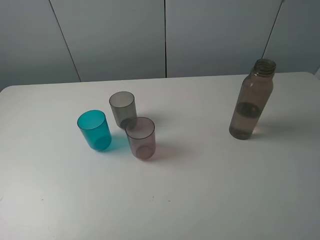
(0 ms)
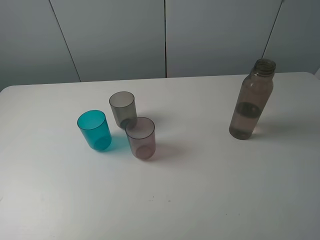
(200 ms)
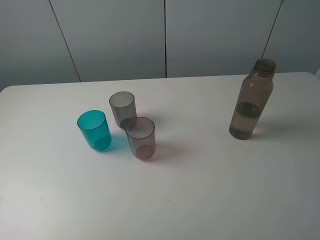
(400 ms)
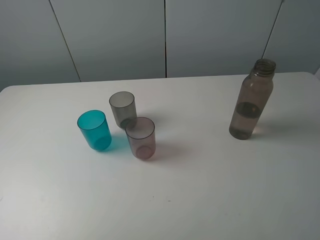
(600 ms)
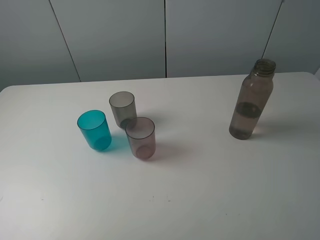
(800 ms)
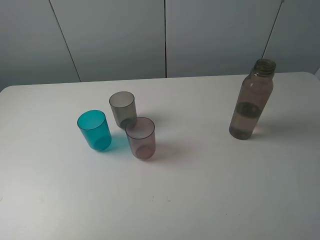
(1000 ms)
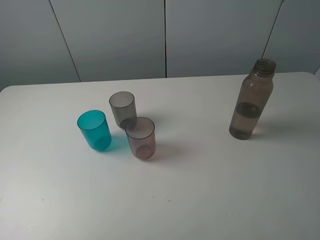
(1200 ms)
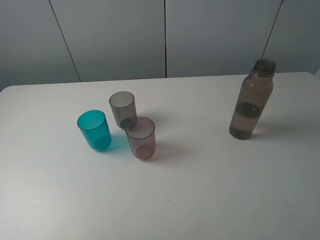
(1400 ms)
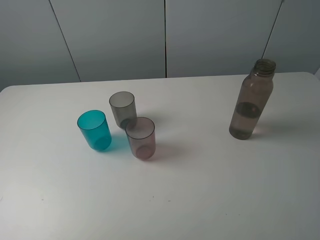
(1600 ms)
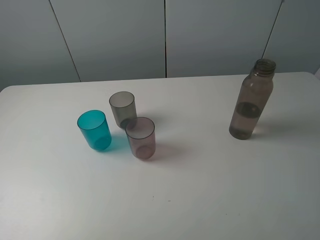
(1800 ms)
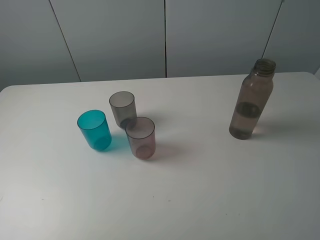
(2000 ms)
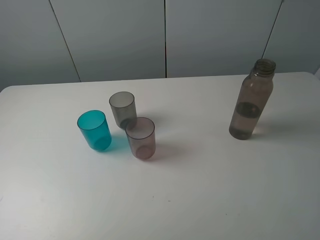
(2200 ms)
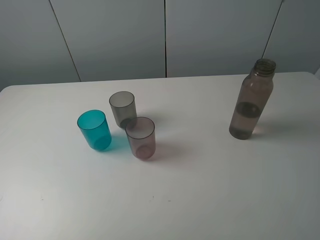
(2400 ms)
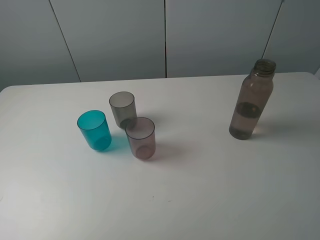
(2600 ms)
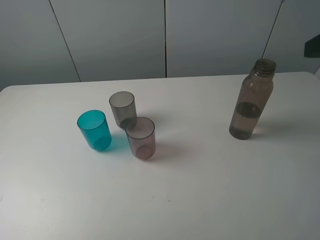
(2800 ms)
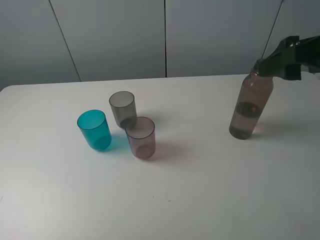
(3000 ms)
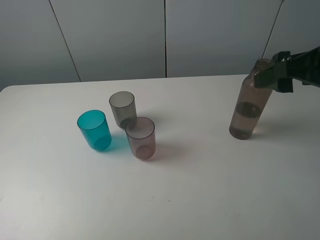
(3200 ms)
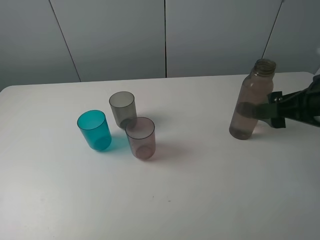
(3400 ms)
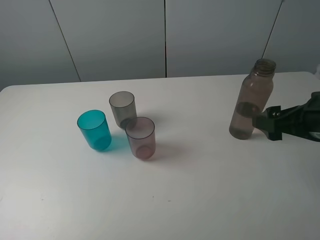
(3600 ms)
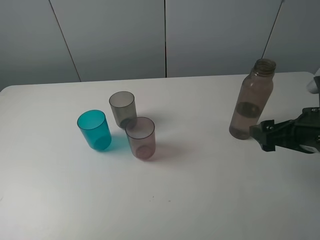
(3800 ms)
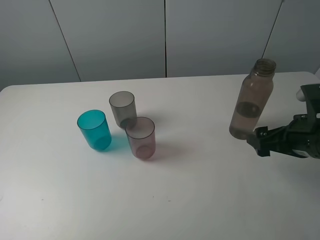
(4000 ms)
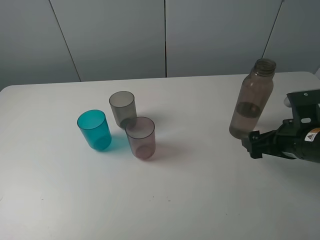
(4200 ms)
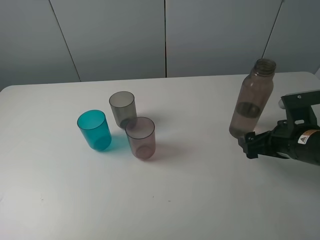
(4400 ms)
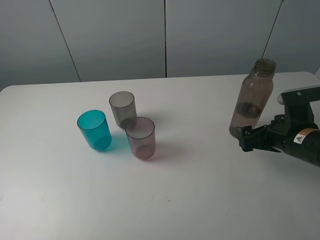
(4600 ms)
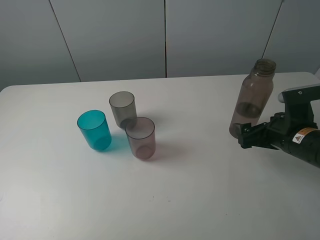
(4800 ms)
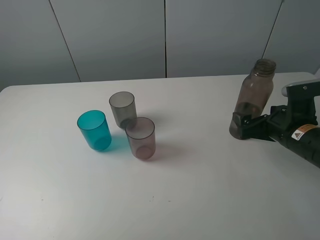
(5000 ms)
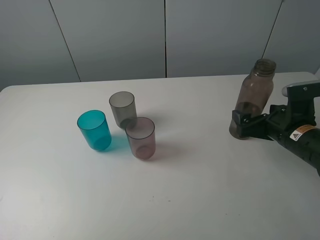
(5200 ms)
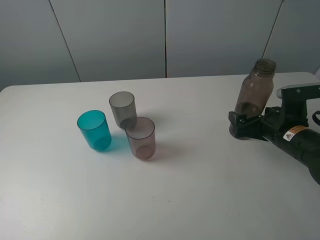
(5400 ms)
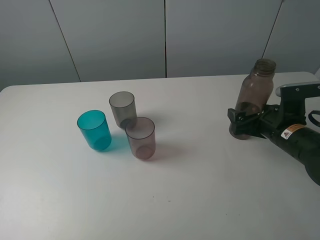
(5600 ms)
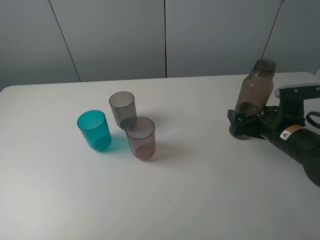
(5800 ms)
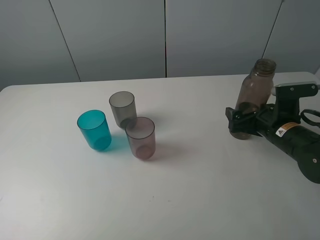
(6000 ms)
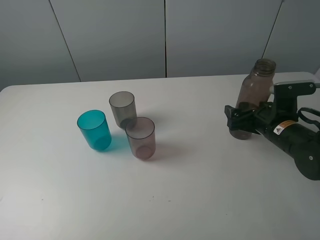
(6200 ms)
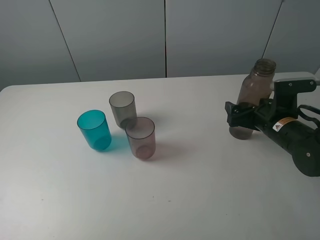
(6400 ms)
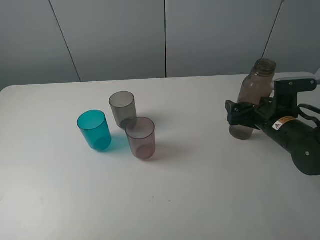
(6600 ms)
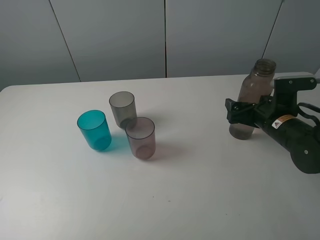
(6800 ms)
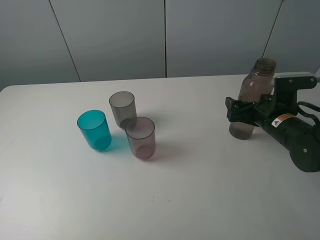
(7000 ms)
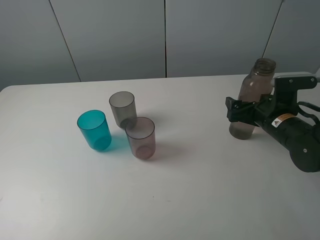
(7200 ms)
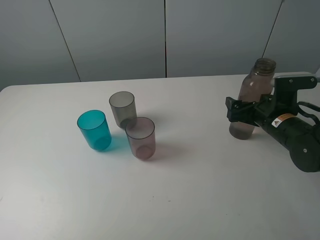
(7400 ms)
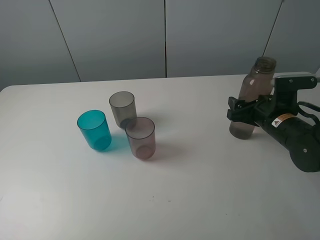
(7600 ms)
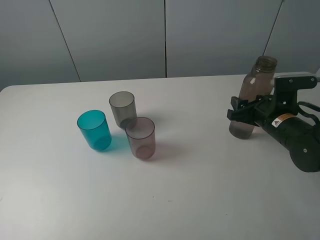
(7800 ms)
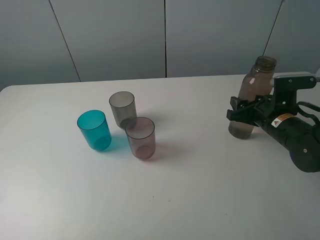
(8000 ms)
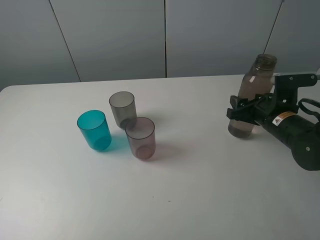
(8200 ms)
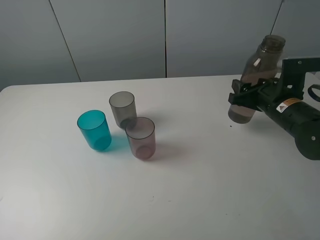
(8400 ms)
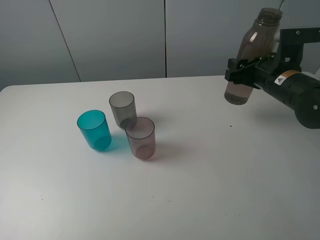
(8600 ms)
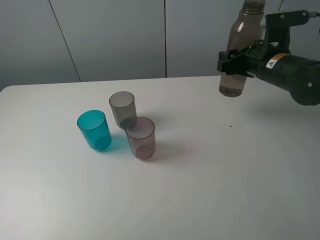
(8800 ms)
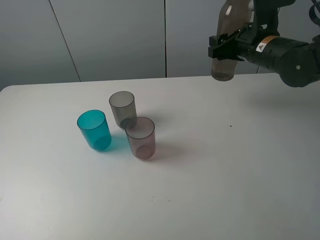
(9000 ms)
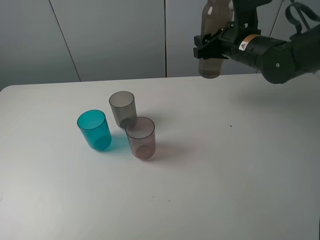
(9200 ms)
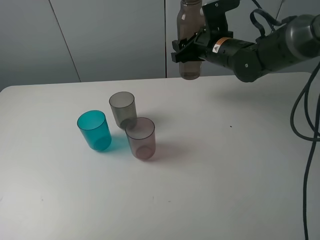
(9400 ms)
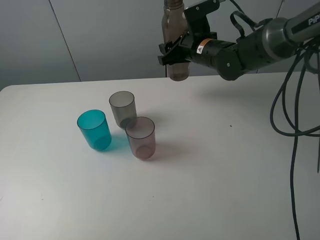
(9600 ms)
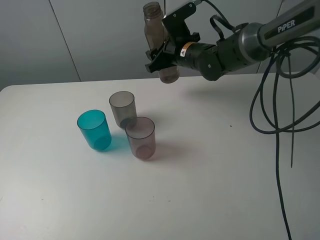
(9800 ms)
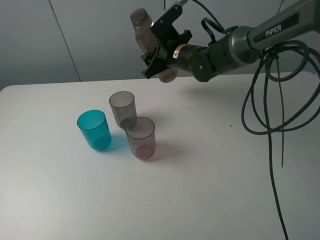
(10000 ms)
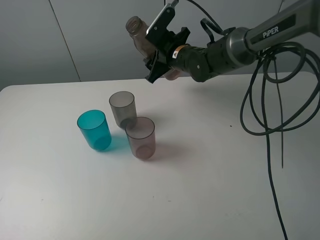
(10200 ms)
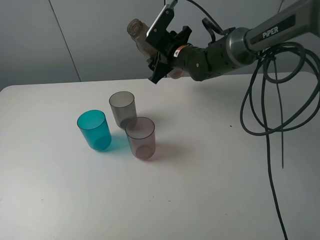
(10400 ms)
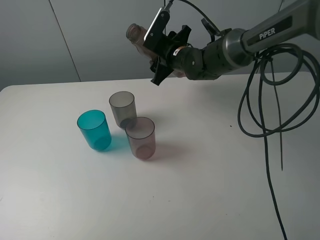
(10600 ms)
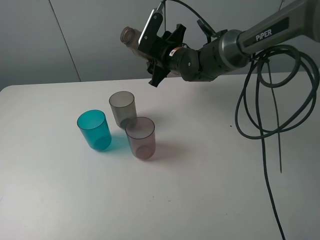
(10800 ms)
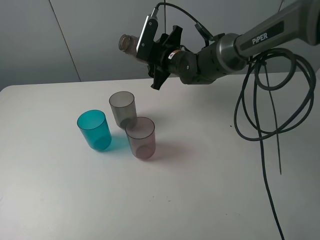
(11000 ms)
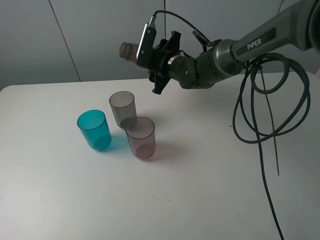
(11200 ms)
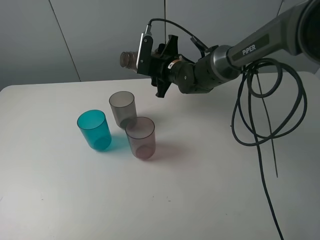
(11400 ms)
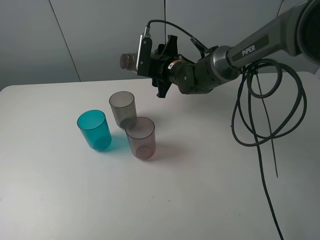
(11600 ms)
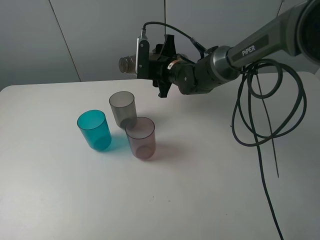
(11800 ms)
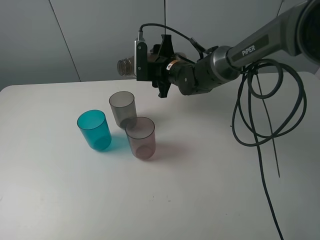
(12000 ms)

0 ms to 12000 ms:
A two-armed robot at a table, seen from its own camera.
Task of the whole recording: pick up the bottle filled with water and pour water into the middle cup of the three cups.
Step, 0 ms to 8000 ms: Grasp the brown bottle with the right gripper.
0 ms to 1600 ms: Both grippers stay about where they are.
1600 ms to 3000 ms: The right gripper shifts some 20 cm forward.
3000 ms to 4400 ms: The right gripper moves downward, some 20 cm.
4400 ms to 6000 ms: The right gripper moves roughly 5 cm.
6000 ms to 7600 ms: The right gripper closes up.
7600 ms to 9000 ms: The right gripper shifts some 15 cm upward, forward and to the left.
9000 ms to 10400 ms: The right gripper is displaced to the left and forward by roughly 15 cm.

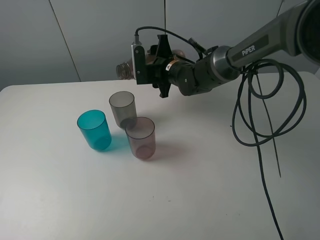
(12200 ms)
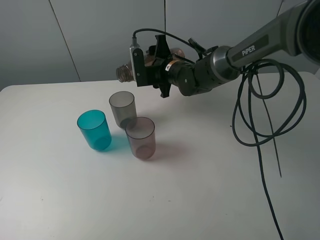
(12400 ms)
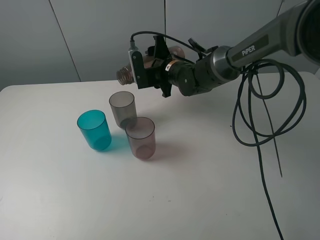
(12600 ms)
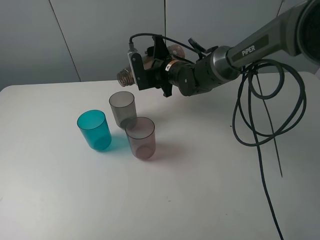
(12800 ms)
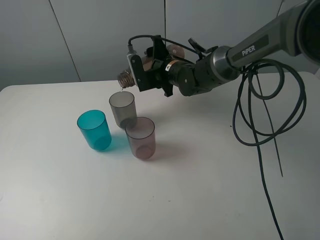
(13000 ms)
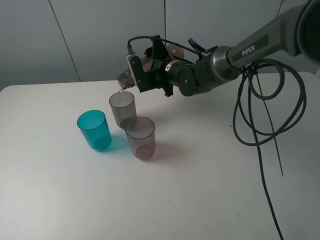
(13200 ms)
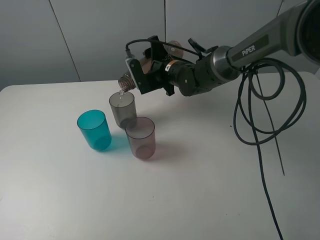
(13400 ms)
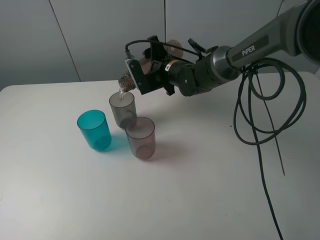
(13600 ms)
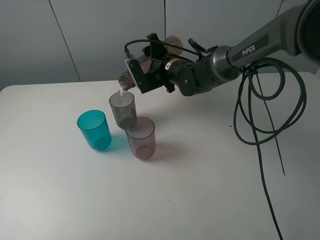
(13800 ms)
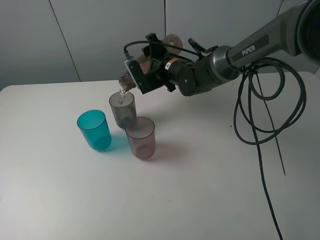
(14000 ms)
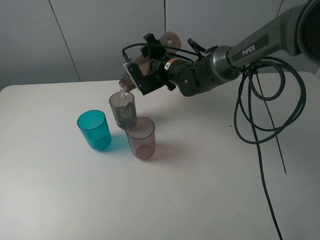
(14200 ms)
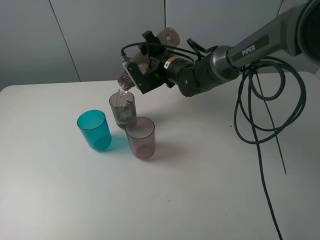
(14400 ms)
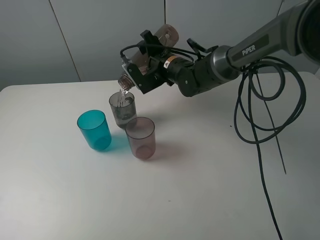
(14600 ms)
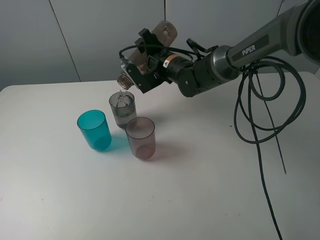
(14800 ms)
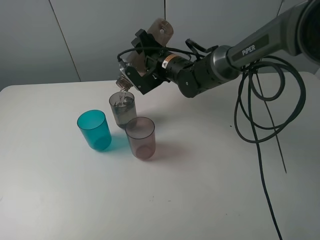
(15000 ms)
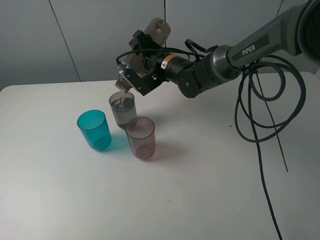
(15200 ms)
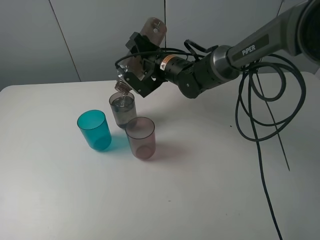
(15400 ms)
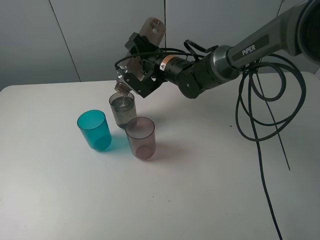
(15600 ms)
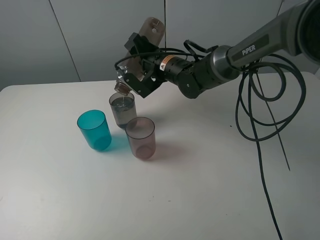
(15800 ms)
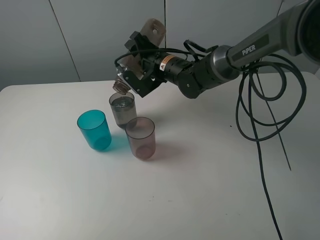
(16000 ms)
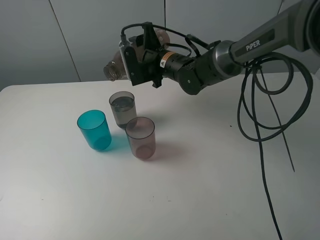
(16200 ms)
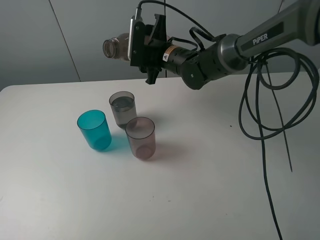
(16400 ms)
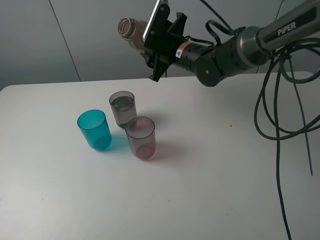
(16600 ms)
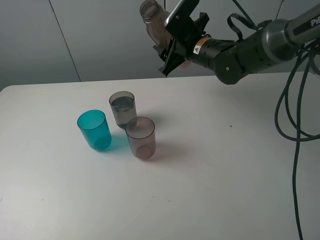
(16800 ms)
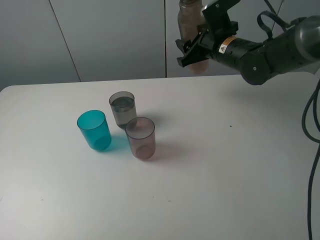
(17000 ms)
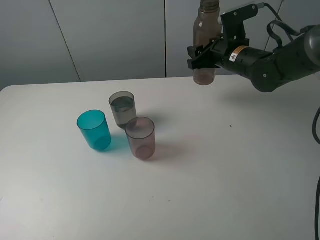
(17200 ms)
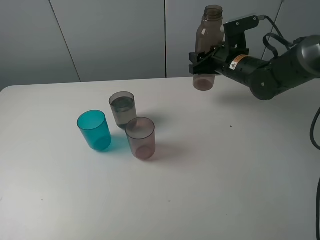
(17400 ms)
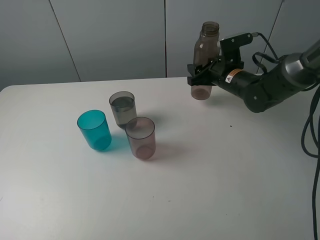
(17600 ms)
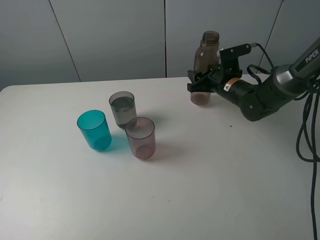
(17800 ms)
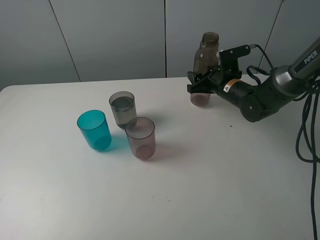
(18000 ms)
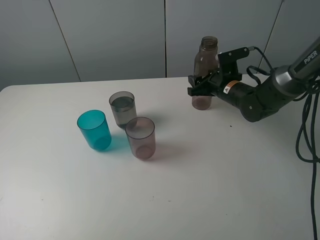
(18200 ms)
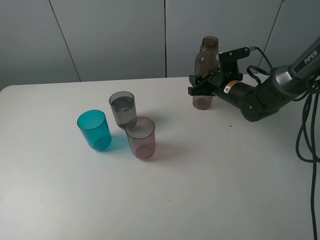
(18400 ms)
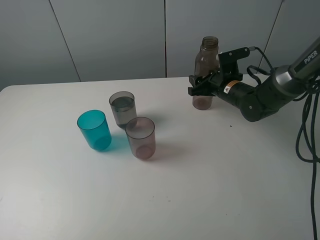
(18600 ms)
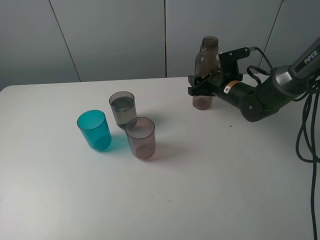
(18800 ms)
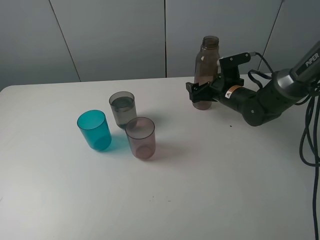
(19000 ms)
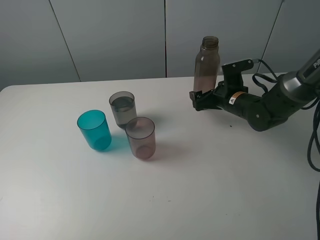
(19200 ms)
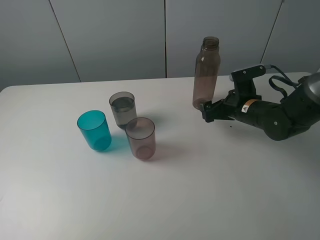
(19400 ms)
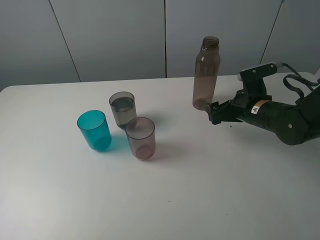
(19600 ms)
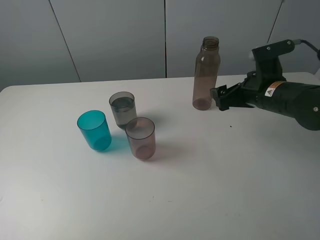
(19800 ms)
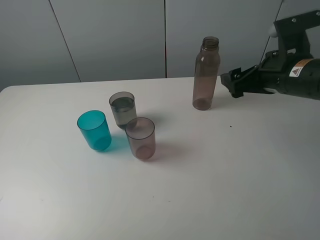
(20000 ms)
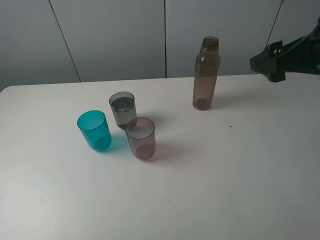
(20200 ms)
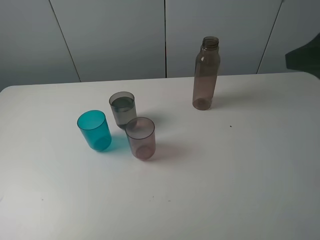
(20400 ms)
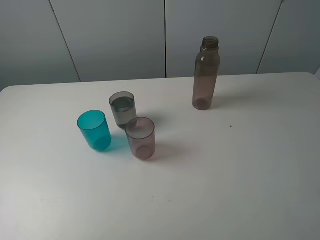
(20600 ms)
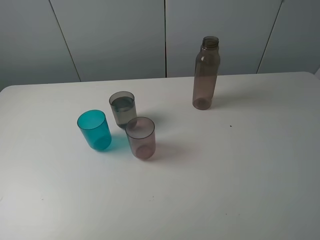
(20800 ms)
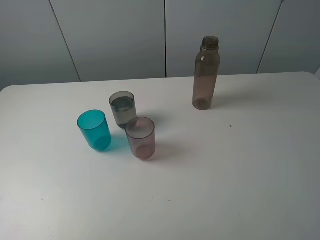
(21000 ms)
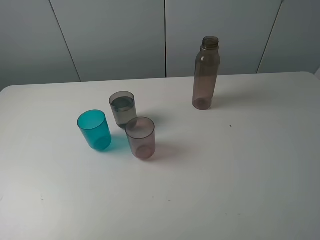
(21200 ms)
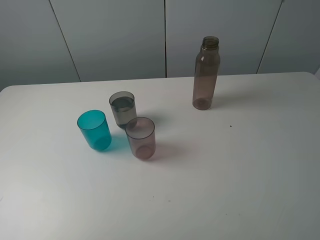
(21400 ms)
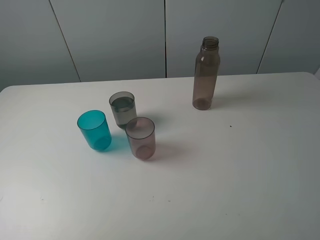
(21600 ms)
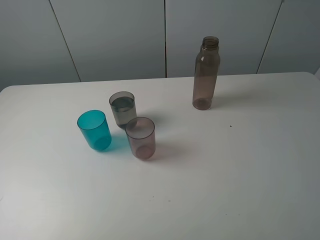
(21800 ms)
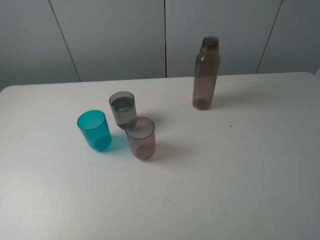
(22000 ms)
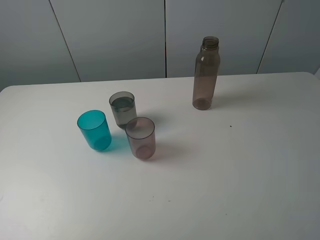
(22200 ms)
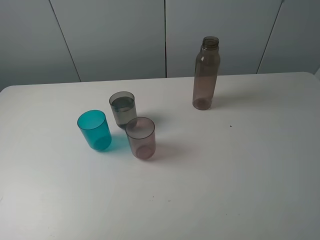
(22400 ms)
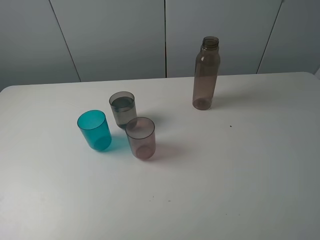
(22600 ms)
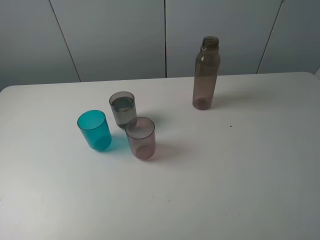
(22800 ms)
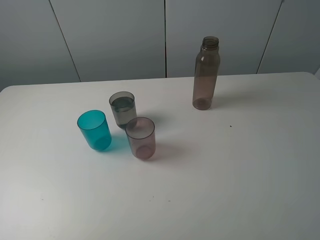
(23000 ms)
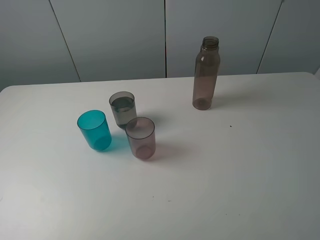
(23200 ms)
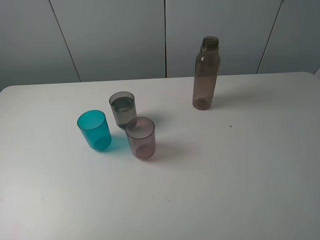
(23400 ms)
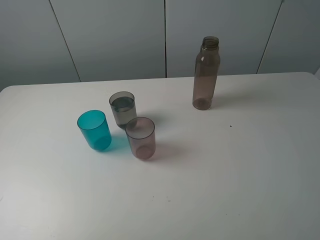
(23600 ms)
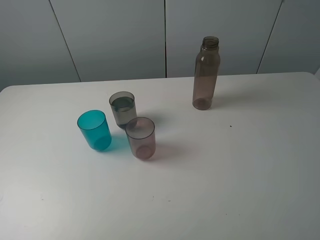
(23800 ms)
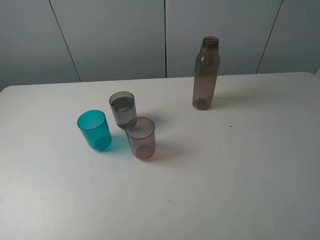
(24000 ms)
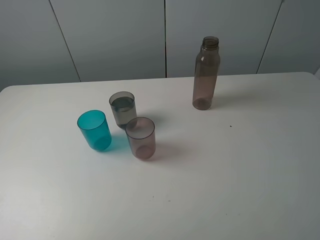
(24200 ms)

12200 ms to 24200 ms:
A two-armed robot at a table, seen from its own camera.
Task of the whole recording: pick up the bottle filled with water and pour water into the middle cup of the three cups.
Step, 12200 ms to 16800 ms: Pour water from brown bottle to grey cup with the right gripper.
Step, 17000 ms to 20000 ms: Place the brown bottle with the right gripper.
15200 ms to 16600 ms: The right gripper shifts by roughly 5 cm.
16600 ms to 18200 ms: The right gripper is displaced to the right and downward by approximately 15 cm.
18200 ms to 19800 ms: The right gripper is displaced backward and upward by roughly 15 cm, and opens.
19800 ms to 21200 ms: The right gripper is displaced backward and upward by approximately 30 cm.
22600 ms to 24200 ms: Neither gripper changes place.
